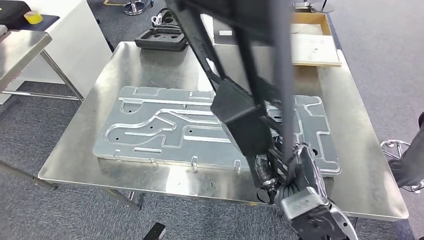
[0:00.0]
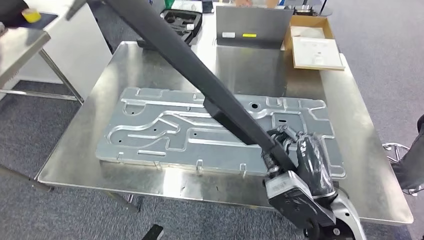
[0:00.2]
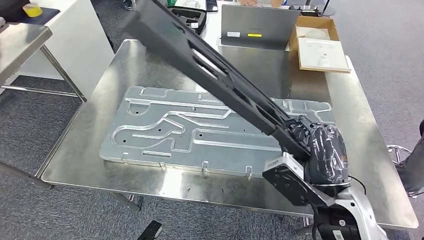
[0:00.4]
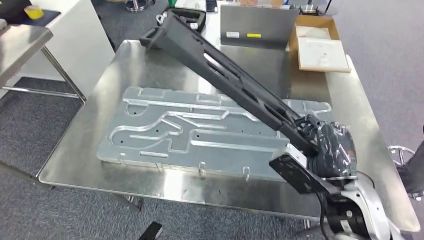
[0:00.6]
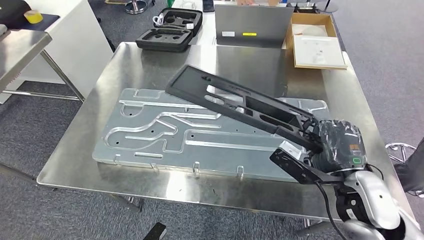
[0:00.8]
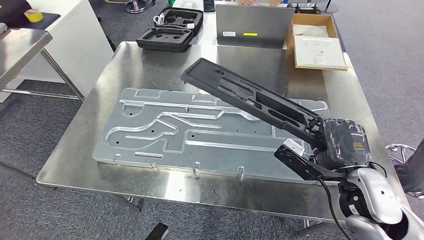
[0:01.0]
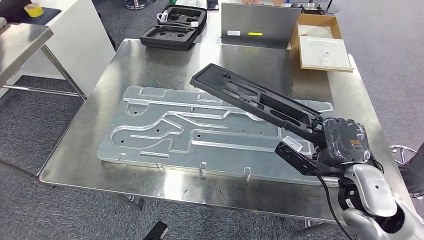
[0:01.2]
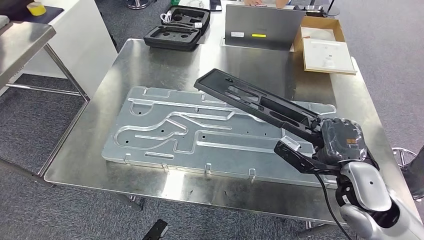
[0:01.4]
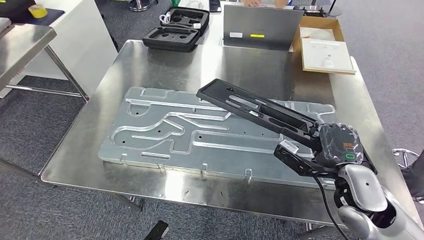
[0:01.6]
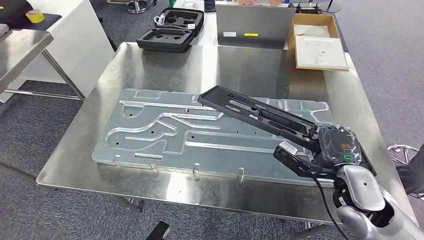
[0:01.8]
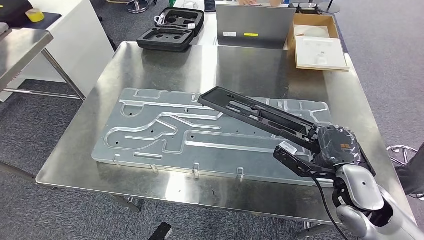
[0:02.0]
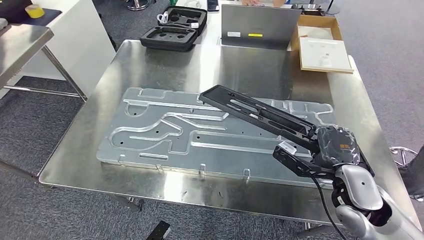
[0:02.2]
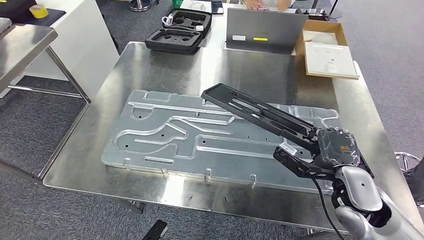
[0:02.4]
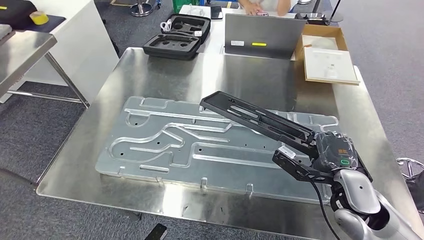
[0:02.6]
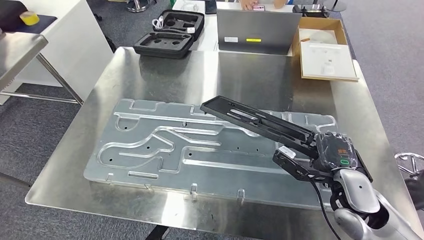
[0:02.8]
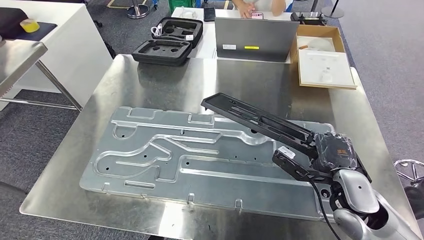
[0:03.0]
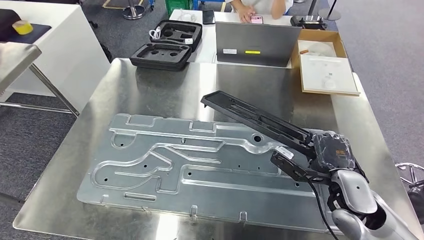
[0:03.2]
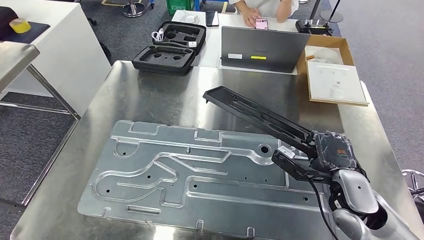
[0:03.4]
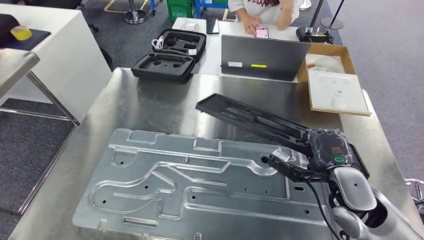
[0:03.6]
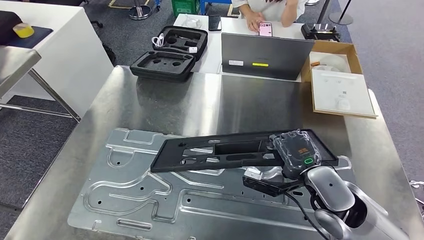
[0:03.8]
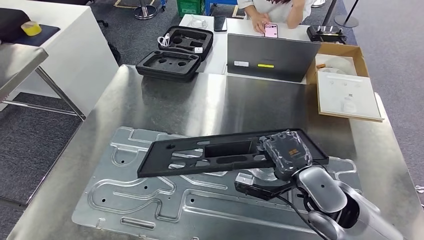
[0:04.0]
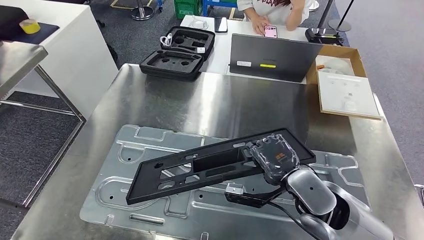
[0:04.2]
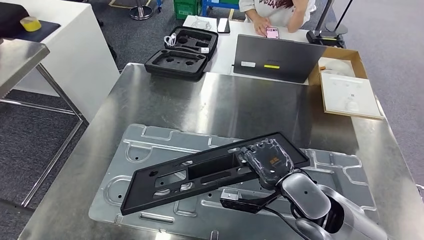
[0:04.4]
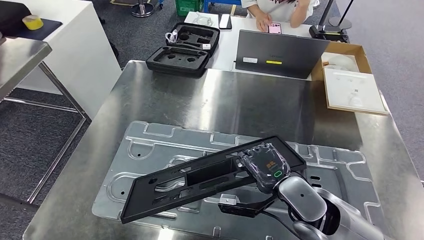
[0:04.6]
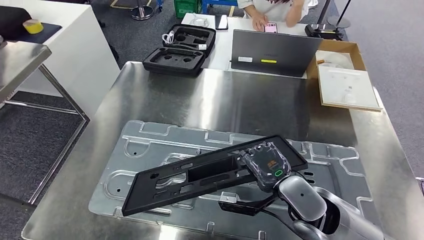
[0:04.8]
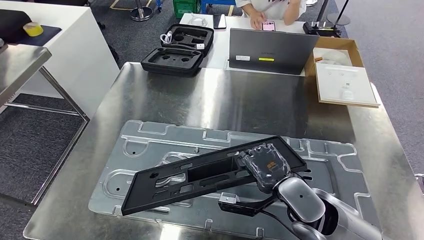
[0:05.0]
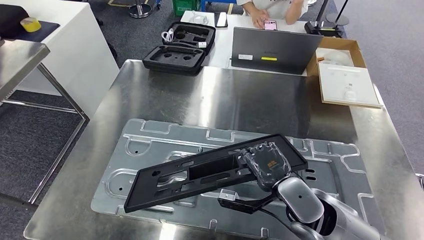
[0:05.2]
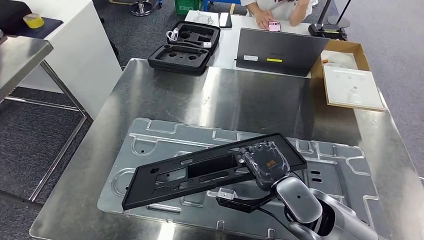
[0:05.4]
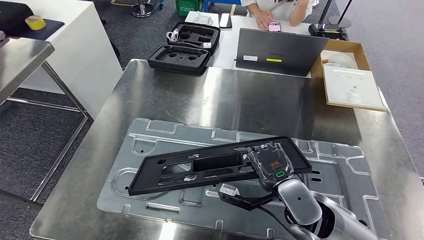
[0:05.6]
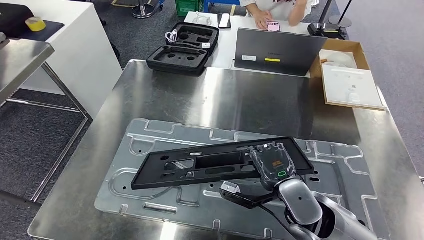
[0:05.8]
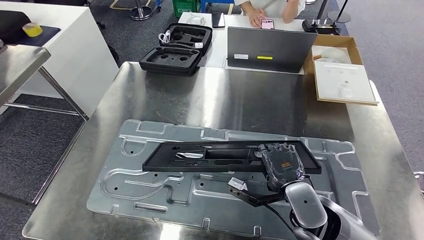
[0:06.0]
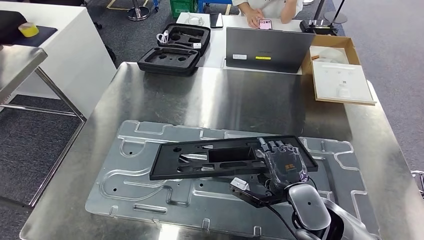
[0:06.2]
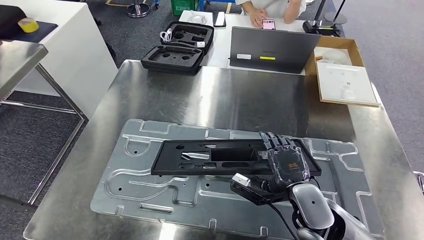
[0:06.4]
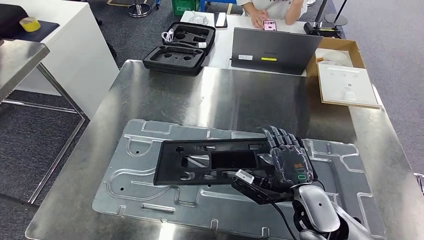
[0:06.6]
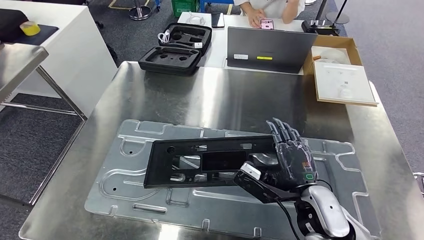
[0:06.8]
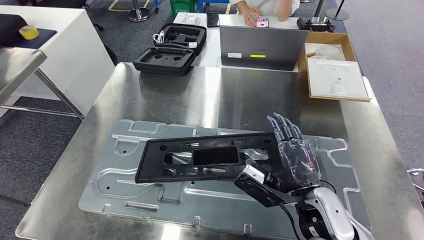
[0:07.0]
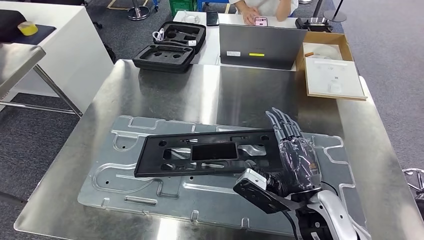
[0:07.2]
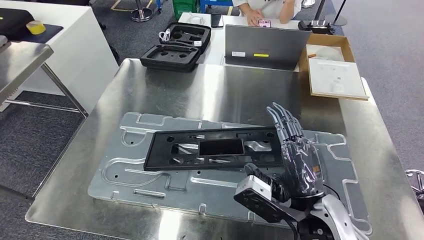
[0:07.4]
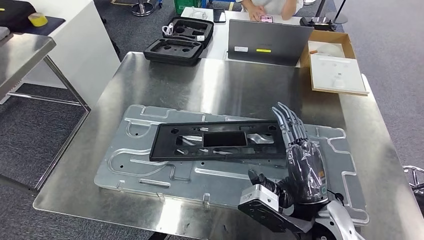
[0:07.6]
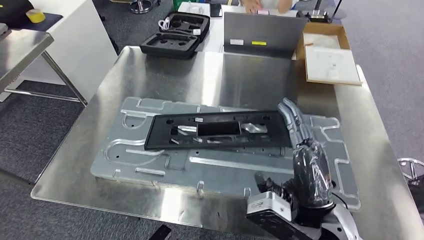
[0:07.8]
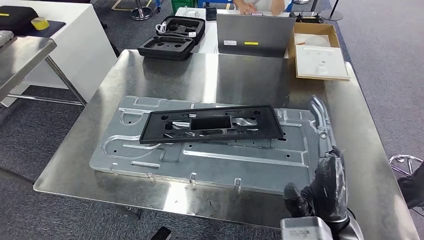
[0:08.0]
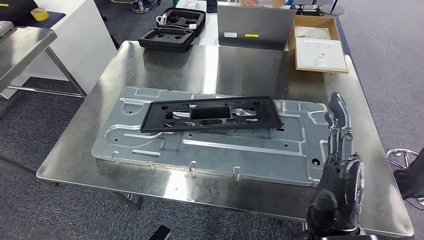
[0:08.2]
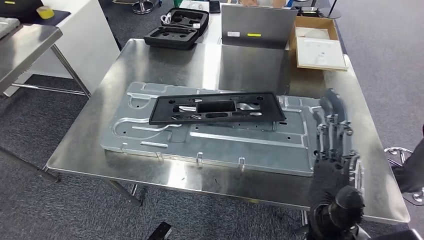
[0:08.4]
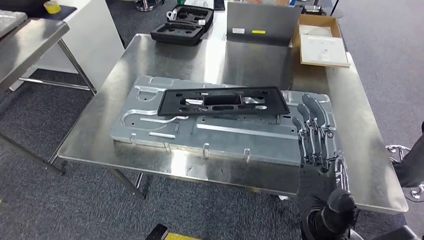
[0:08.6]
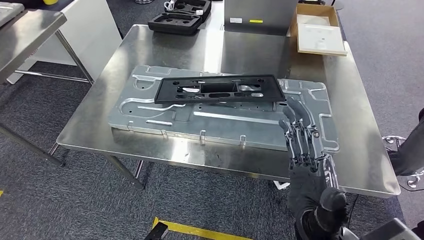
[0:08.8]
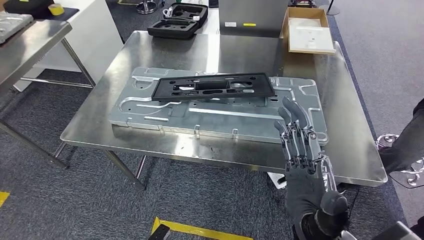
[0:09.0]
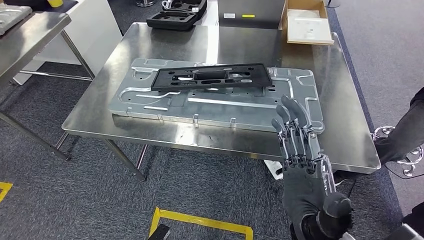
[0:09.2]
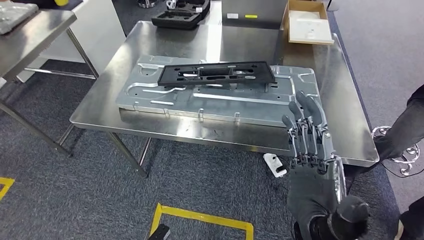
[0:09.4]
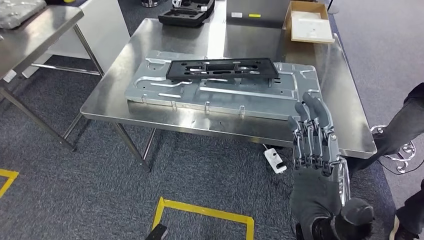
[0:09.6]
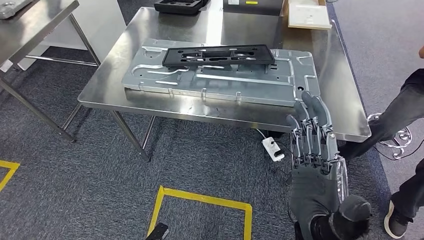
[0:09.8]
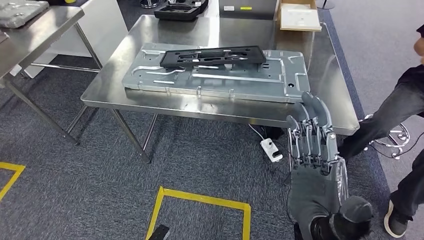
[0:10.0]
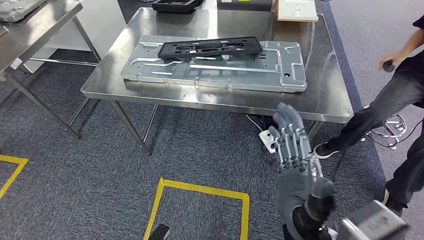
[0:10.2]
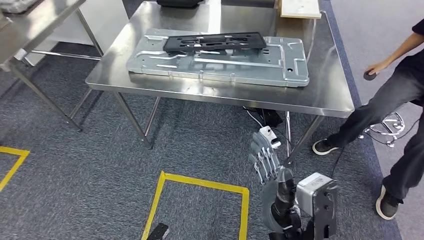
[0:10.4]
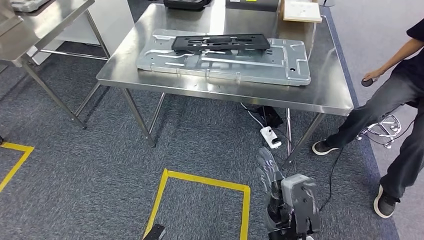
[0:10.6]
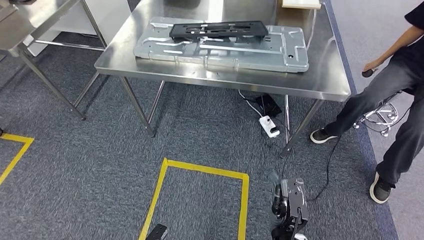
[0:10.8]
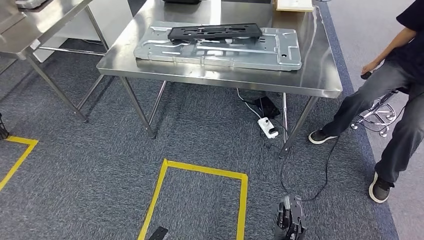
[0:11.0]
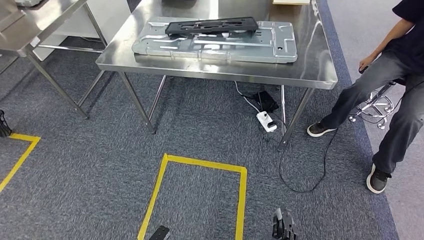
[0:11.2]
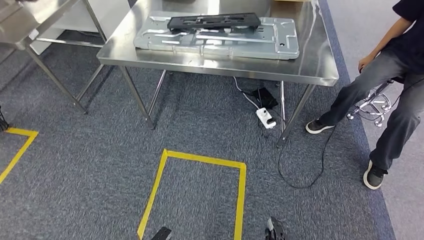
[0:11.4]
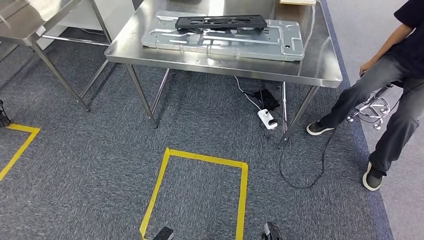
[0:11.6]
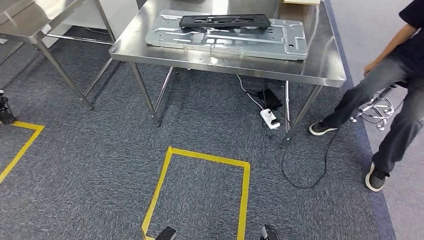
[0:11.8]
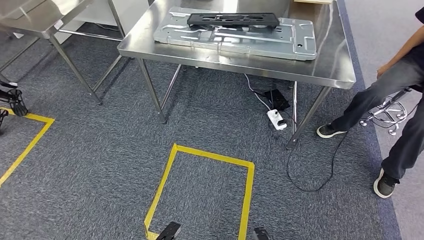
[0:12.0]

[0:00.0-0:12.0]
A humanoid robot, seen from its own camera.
Step, 0:00.0 to 0:08.0: Insert the large material into the corresponding slot on the workbench.

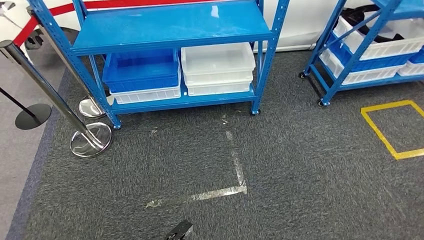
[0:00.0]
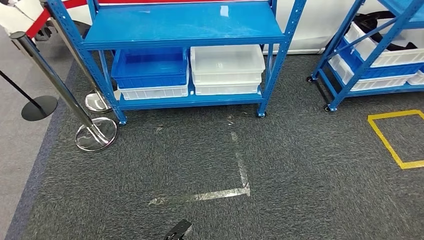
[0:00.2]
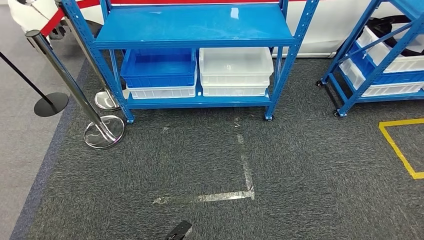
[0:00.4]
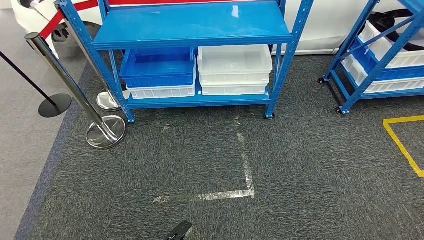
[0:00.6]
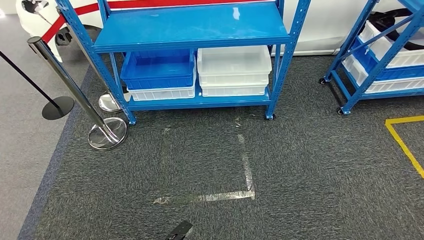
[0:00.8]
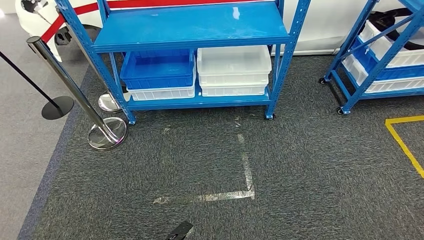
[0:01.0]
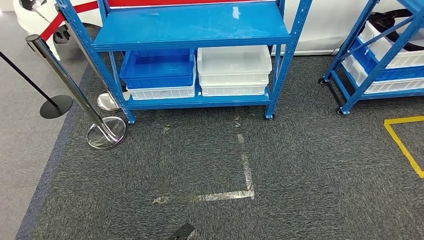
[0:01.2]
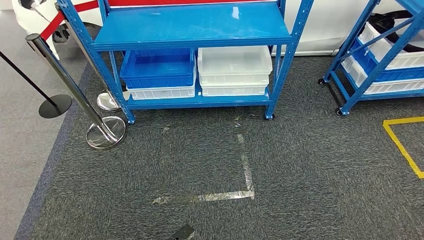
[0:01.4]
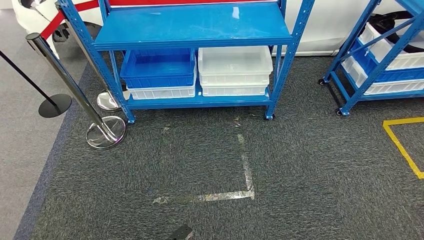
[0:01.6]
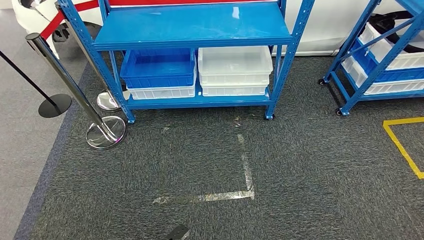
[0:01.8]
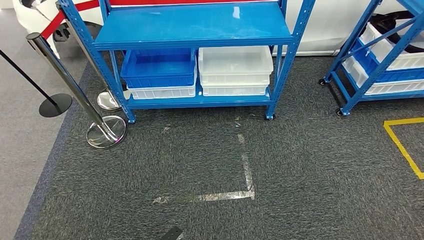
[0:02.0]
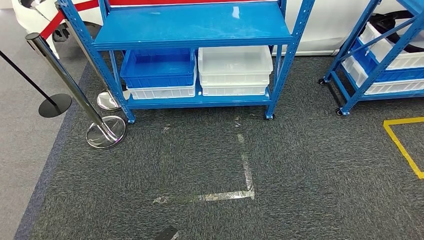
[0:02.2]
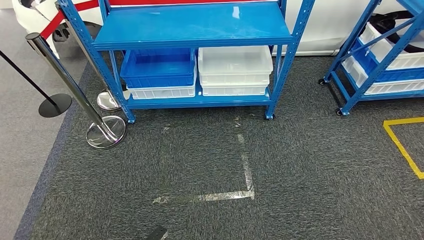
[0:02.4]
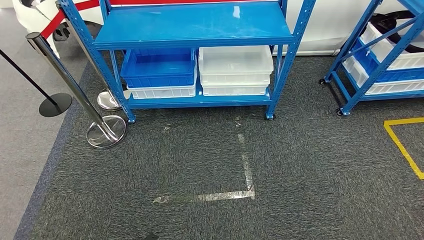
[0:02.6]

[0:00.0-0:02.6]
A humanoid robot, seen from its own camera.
Step, 0:00.0 to 0:02.6: Move to the initial position of the shelf.
0:01.2 to 0:02.6: The left hand is displaced backward and to the left by approximately 15 cm. The right hand shifts some 10 cm backward and to the right.
